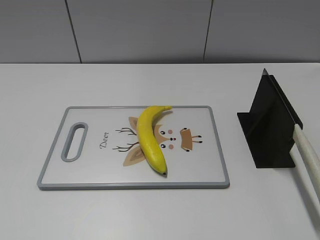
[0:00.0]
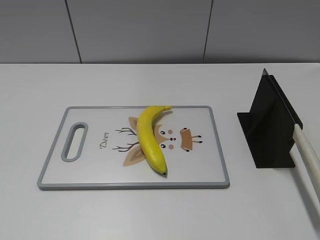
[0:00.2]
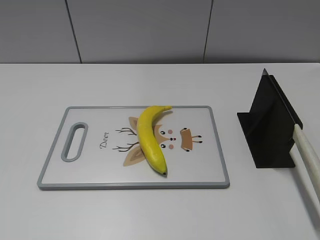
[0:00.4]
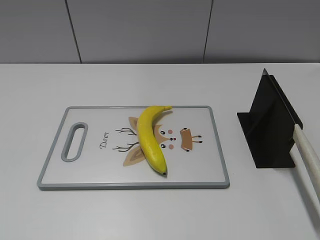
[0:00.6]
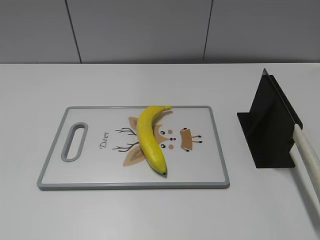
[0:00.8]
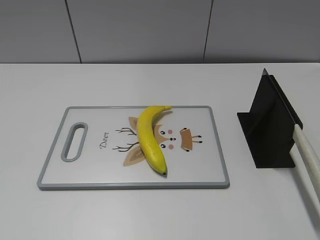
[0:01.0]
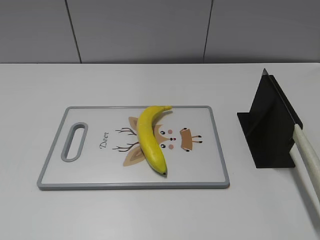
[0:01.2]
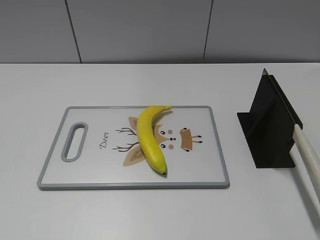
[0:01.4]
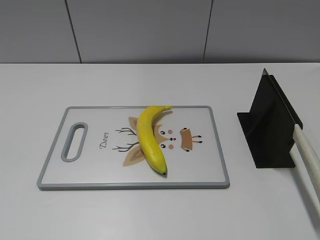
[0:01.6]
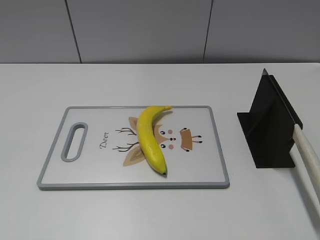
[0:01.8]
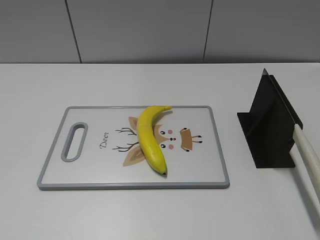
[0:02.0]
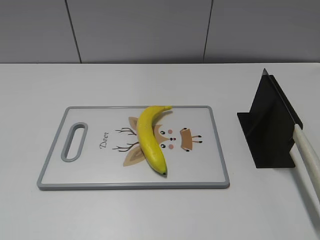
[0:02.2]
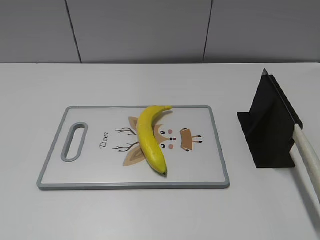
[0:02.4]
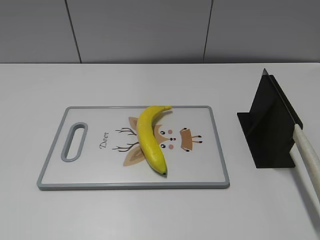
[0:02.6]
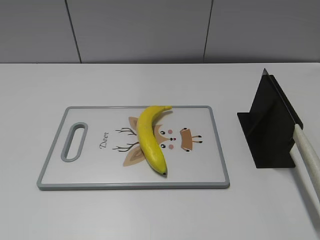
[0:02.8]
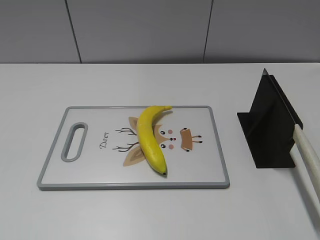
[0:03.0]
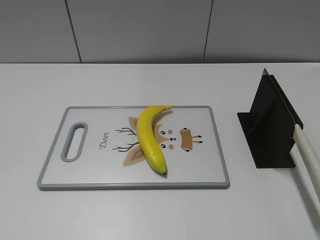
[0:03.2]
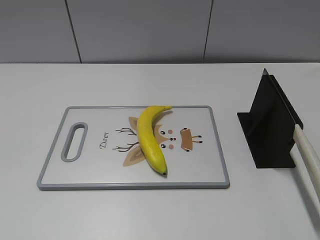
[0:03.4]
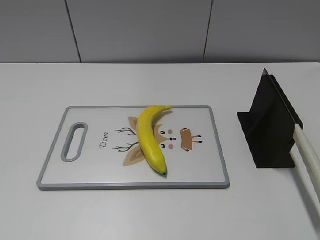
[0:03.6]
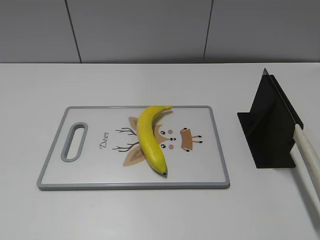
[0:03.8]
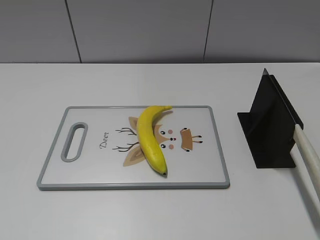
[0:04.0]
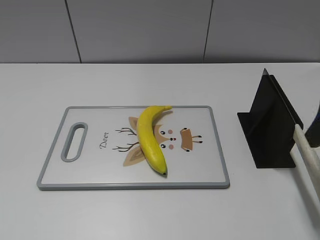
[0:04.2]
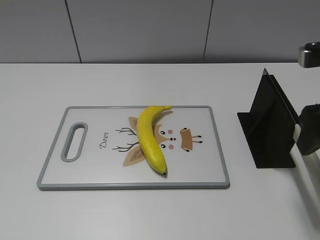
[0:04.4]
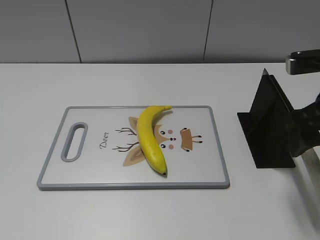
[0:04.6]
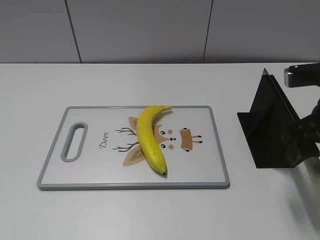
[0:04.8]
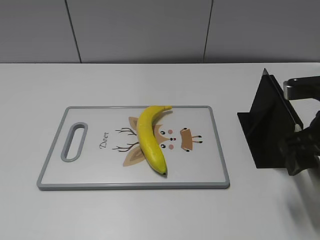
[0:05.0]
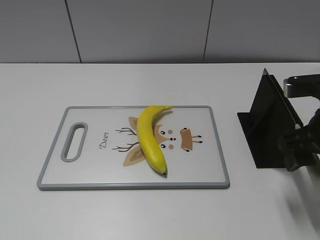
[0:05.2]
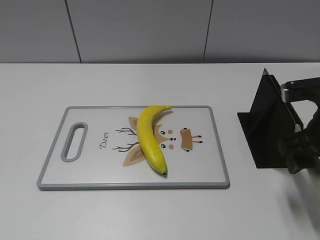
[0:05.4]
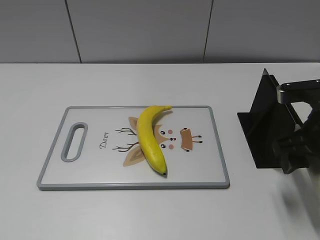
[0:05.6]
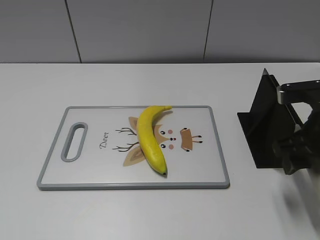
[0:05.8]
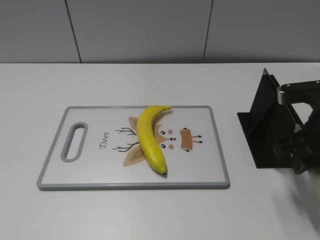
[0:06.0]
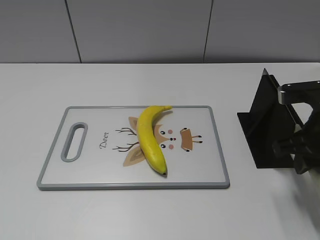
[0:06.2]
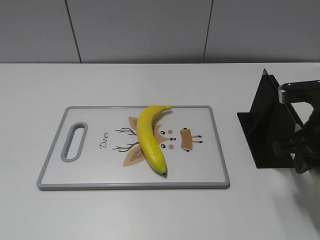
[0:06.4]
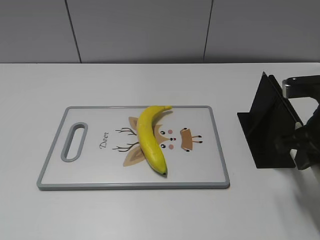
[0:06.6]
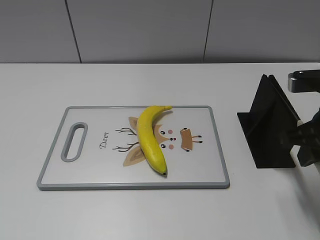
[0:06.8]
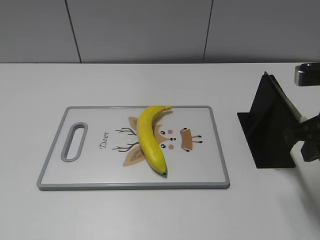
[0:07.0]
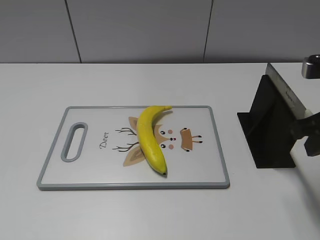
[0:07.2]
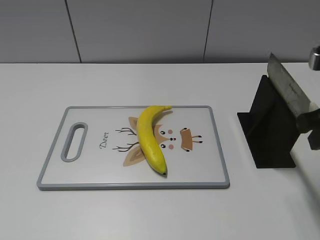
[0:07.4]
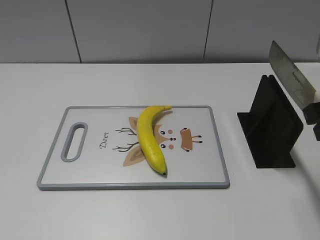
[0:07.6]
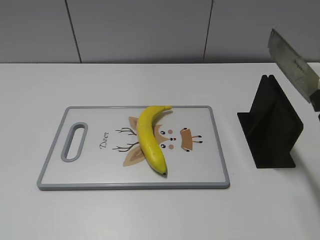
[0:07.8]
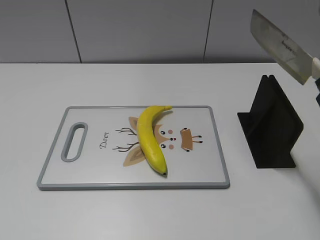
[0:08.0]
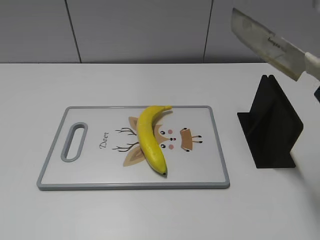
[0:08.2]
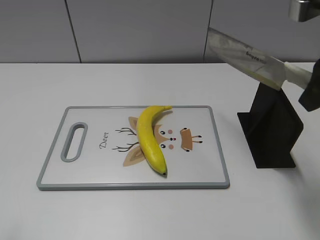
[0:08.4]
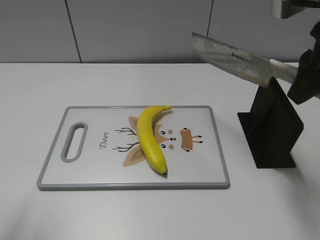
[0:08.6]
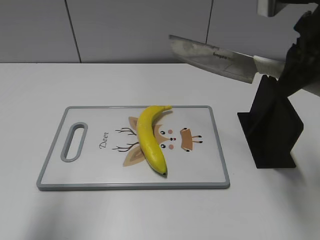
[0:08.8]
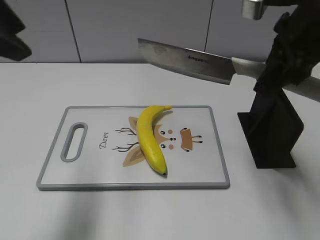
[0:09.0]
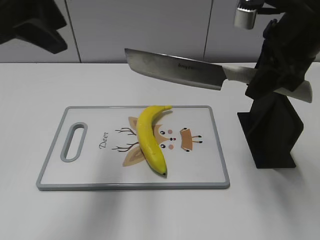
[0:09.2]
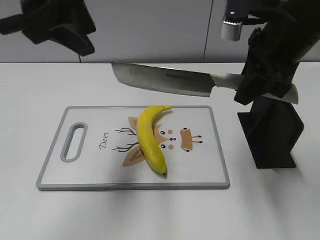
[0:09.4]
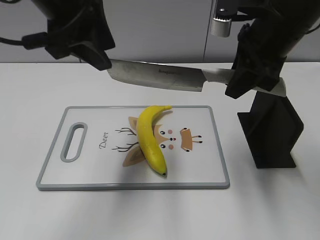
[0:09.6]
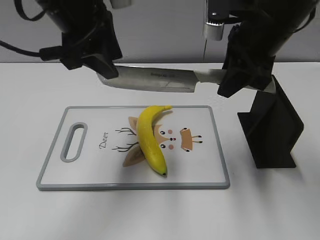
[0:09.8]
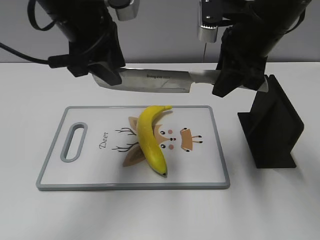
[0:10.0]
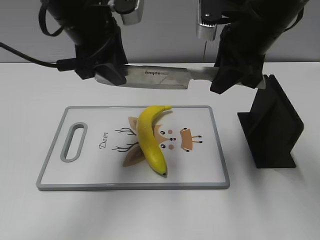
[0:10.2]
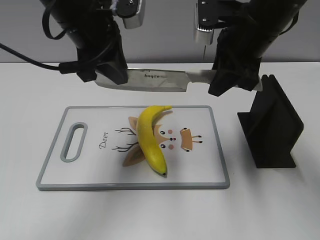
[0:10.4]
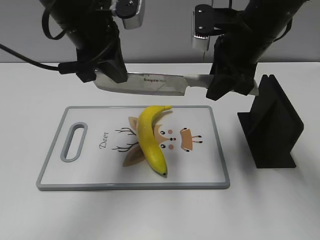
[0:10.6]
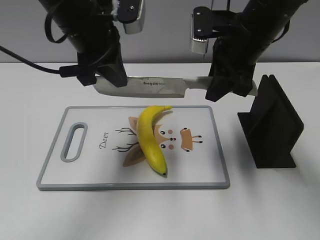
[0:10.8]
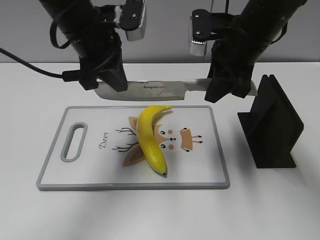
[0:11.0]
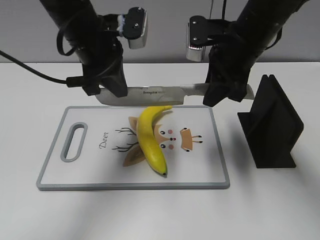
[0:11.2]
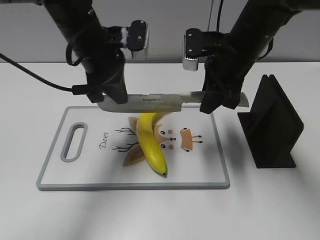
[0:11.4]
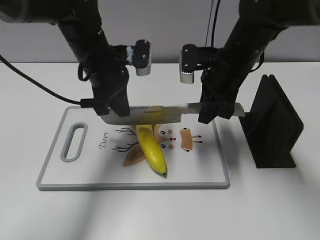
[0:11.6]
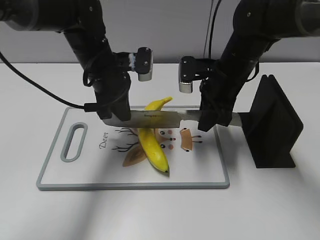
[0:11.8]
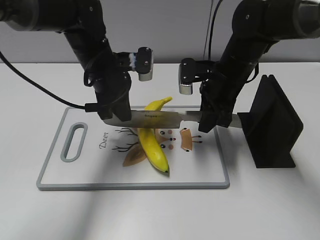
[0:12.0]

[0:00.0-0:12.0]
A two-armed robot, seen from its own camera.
Task of the whole recording: cut plastic banana.
Step, 0:00.0 to 0:07.8: Grab the knife handle with your right hand.
0:03.0 to 0:04.4: The right gripper moves forward, downward and to the left, some 20 cm.
0:04.4 to 0:06.0: The right gripper shifts roughly 5 cm downward, and closes.
0:06.0 to 0:07.6: The right gripper goes some 10 cm upward.
0:07.6 to 0:09.0: The left gripper shifts roughly 30 cm forward, to the right and upward. Meanwhile the right gripper heads forward and to the left, covering about 10 cm.
0:09.0 to 0:10.4: The right gripper heads forward and to the left, covering about 5 cm. The left gripper moves forward, downward and to the right, about 20 cm, and closes up.
0:10.4 to 0:12.0: Both grippers travel together downward, about 10 cm.

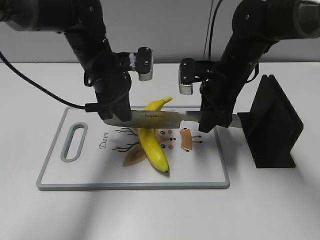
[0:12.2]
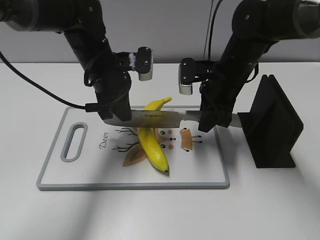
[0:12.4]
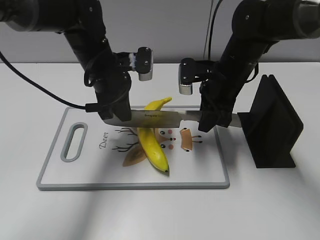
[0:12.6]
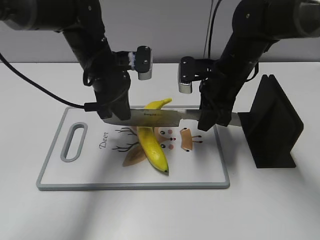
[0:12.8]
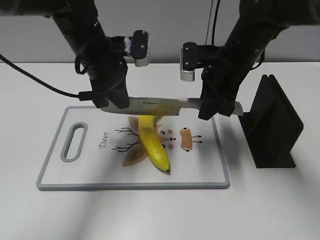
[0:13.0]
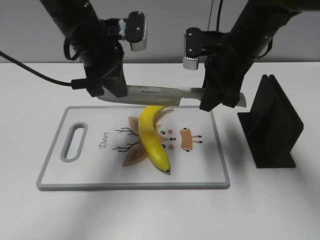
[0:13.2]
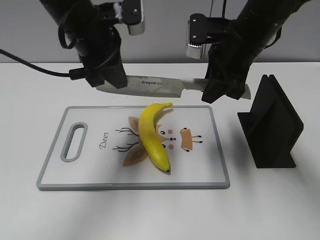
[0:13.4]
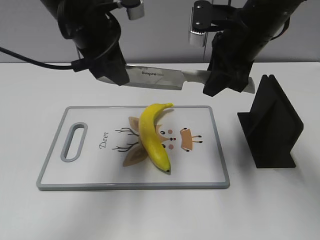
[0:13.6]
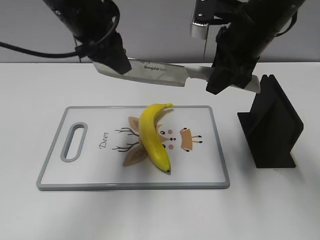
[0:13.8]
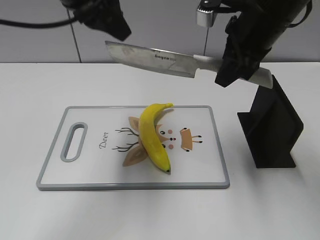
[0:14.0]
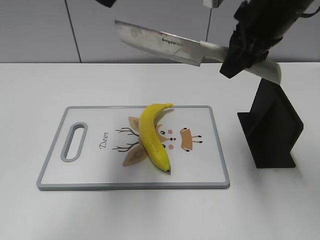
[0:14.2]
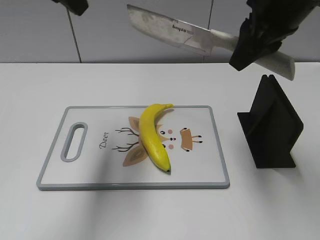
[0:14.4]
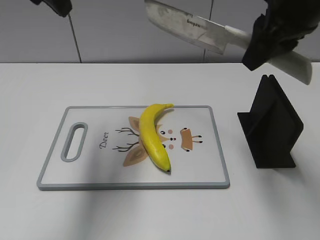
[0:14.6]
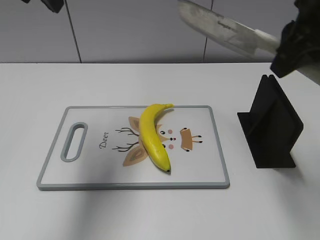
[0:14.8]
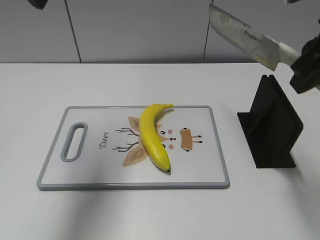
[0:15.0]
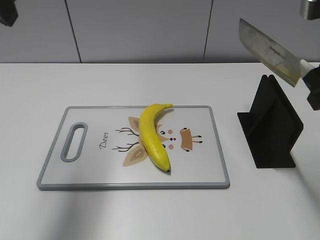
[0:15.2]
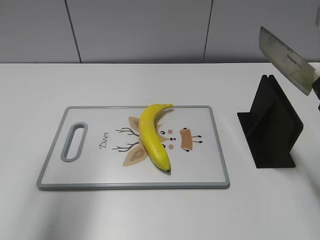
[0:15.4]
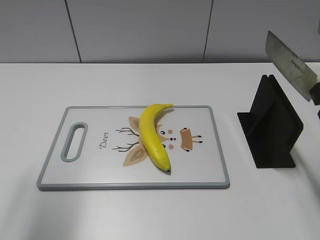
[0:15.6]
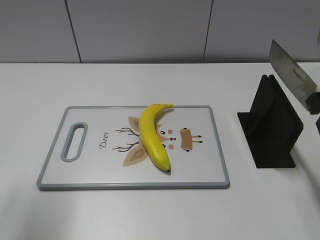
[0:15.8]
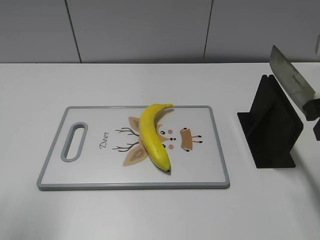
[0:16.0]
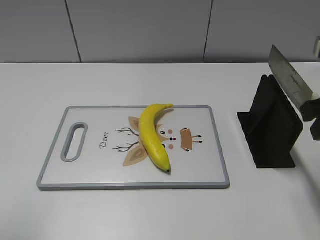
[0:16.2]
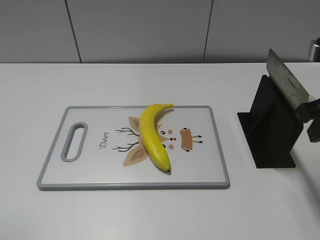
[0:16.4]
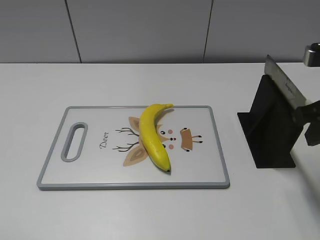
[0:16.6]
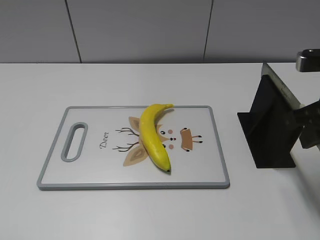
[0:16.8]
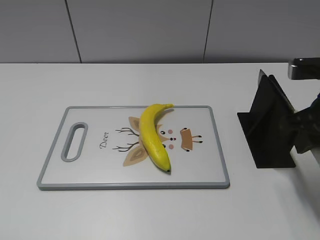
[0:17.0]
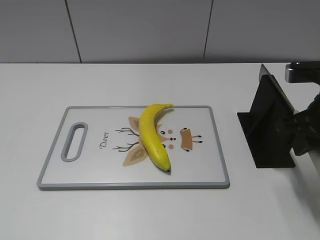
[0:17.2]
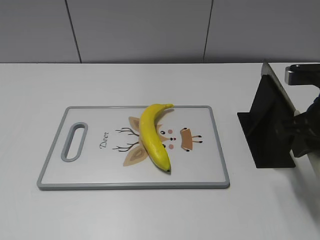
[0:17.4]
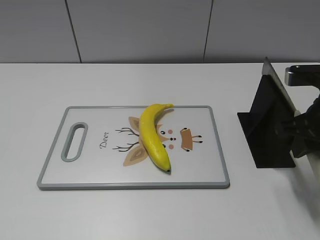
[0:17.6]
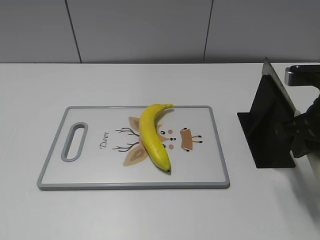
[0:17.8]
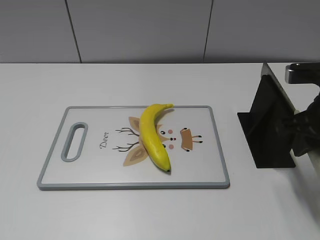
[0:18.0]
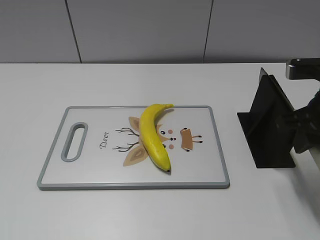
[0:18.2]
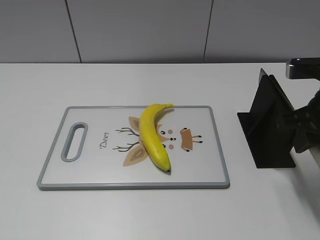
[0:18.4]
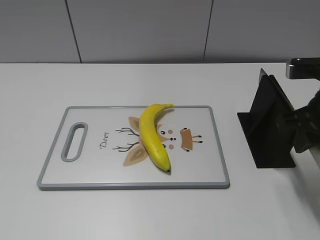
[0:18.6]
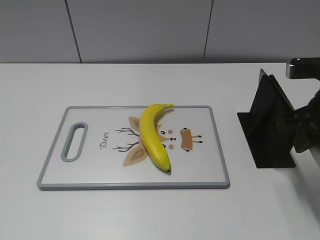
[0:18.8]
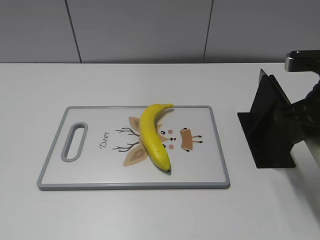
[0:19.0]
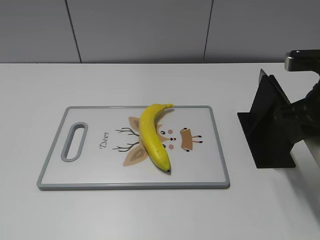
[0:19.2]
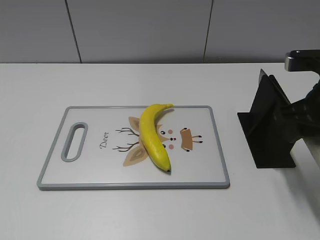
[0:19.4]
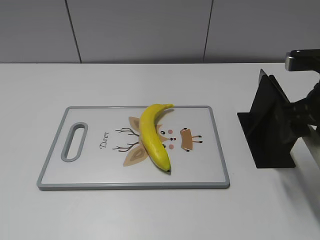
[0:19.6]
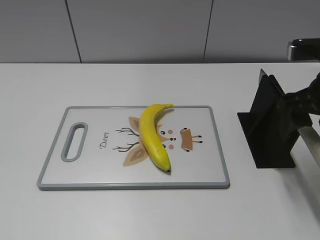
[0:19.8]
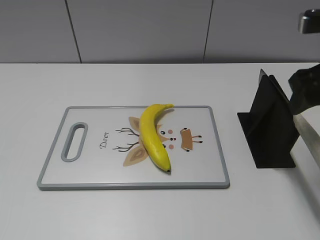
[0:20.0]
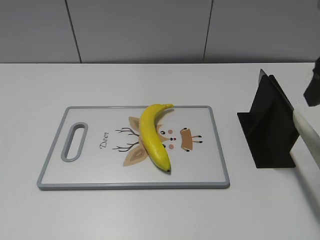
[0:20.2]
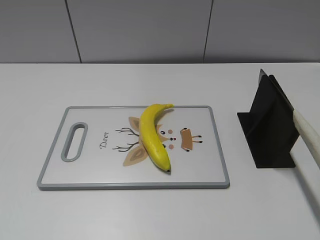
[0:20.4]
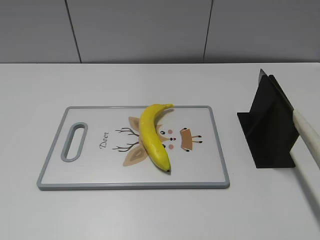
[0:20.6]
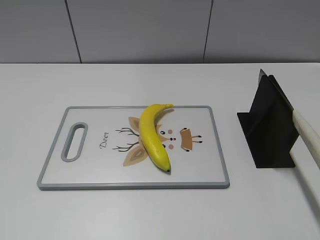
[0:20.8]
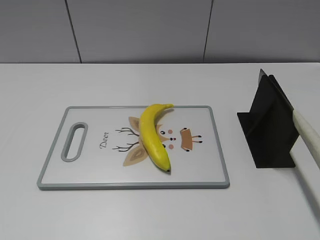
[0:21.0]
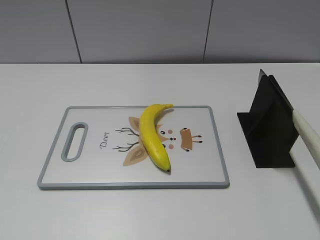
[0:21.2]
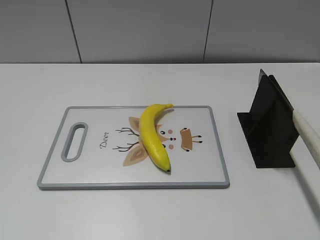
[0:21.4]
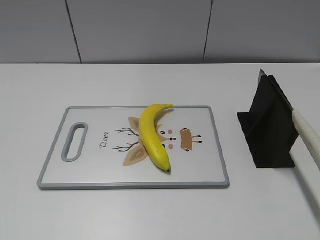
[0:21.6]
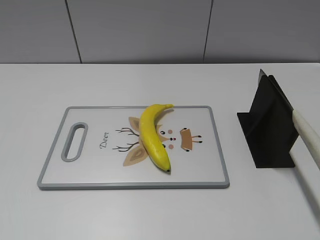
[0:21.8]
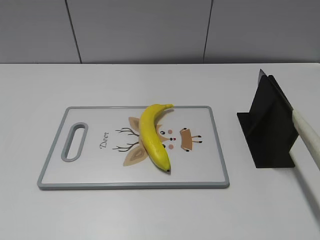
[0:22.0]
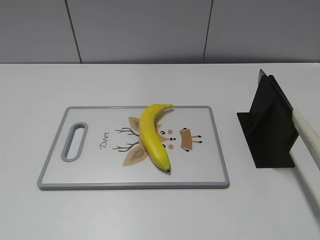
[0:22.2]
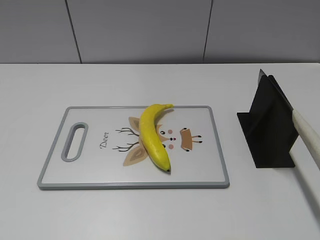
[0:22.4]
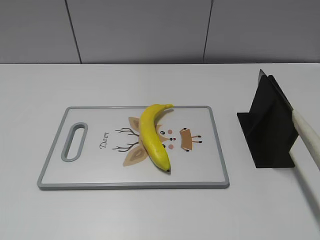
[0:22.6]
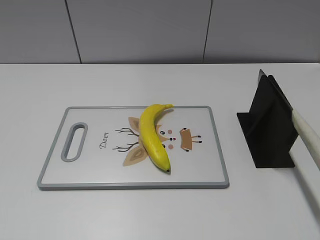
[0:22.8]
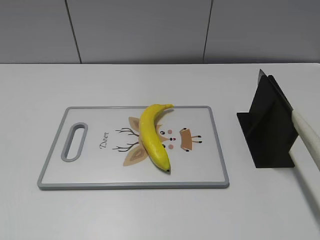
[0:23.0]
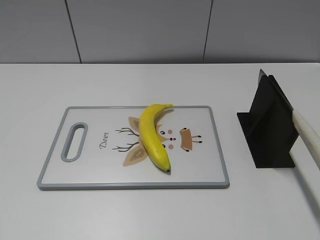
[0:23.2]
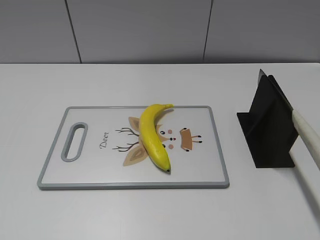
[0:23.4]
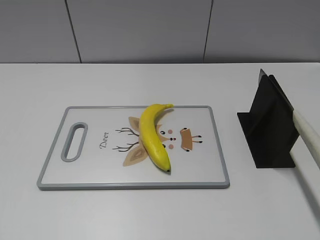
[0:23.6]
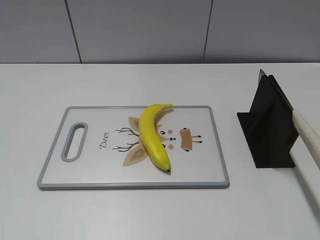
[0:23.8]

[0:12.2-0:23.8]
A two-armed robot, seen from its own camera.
Task of the whole recording: cut plastic banana.
Step, 0:13.8 to 0:14.6: Cut the banana with your right hand.
Step, 0:14.8 to 0:16.8: Lift the knife with your right hand.
Step, 0:17.0 to 0:23.8: Place the knife on the storage rack with your right hand.
0:12.2 to 0:13.6: Both grippers move upward, approximately 10 cm. The left gripper opens up.
0:13.6 to 0:15.0: The left gripper shifts about 15 cm upward and to the left, and opens up. Meanwhile the right gripper travels backward, to the right and upward by some 15 cm.
0:15.0 to 0:16.6: The right gripper moves downward, about 10 cm. Meanwhile the left gripper is displaced backward and to the left by some 25 cm.
0:18.0 to 0:19.4: The right gripper opens.
0:19.4 to 0:21.0: The right gripper shifts some 20 cm backward and upward, and opens.
